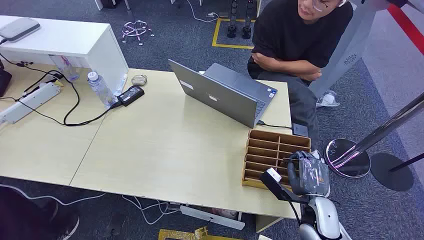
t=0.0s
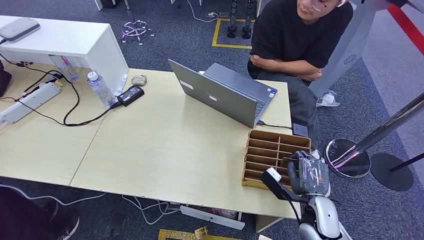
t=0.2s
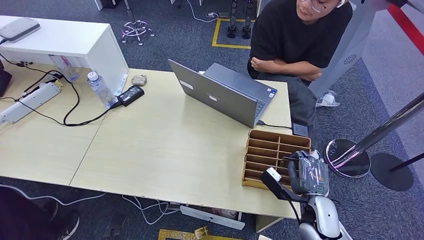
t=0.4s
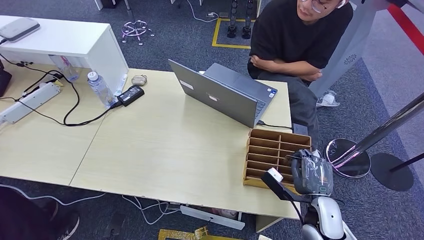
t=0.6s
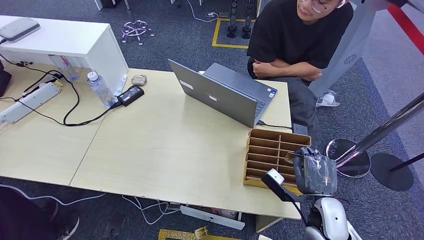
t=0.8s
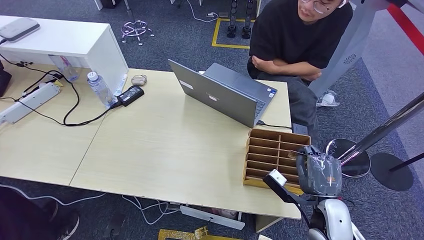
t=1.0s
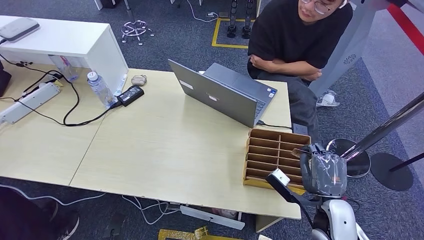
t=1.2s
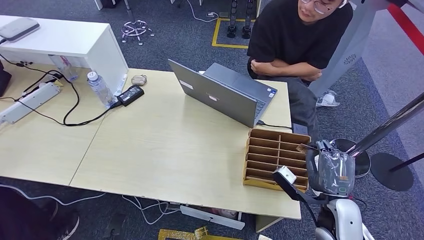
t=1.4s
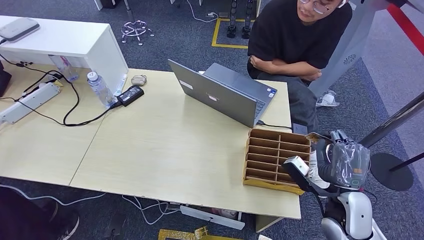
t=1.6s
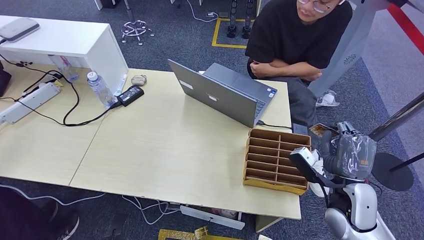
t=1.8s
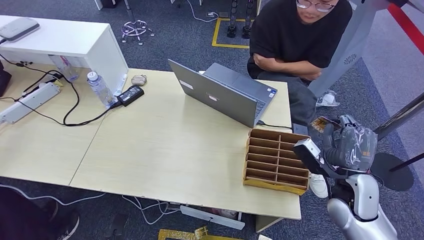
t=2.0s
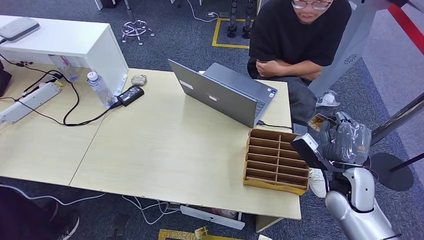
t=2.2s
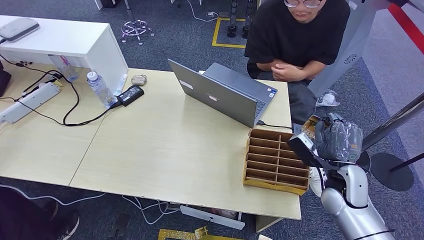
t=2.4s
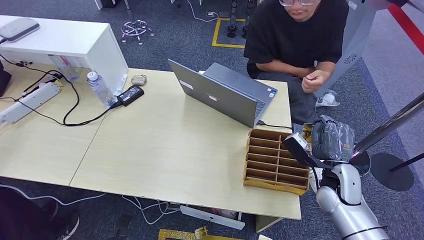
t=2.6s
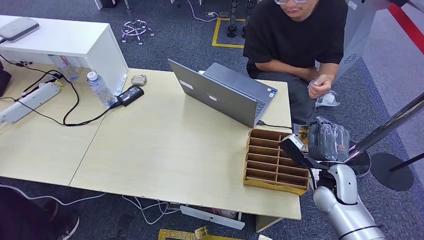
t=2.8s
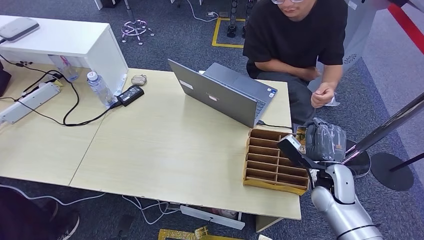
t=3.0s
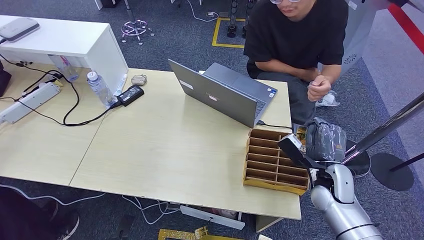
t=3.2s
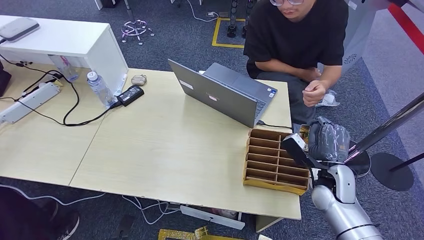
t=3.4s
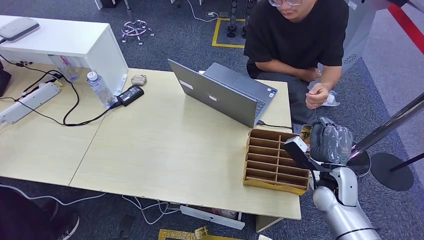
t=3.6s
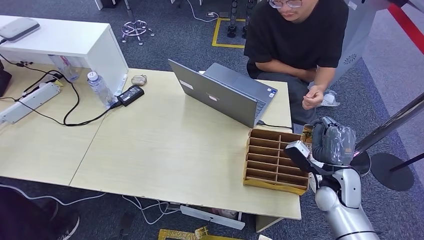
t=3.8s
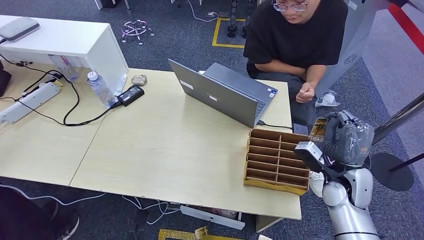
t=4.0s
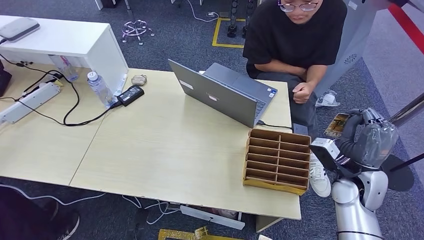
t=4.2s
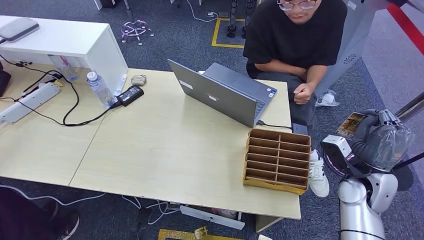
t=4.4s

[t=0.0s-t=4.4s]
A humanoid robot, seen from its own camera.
Task of the whole recording: Pick up the card and hand it over to the target person.
Step, t=0.0s to t=2.0s: Pick up the key card from the card box.
Step, t=2.2s to t=4.4s: Hand the key card to the target.
t=1.4s to t=3.0s: The right hand goes about 5 cm forward.
t=3.0s to t=4.4s: The right hand shifts some 10 cm to the right and upward.
